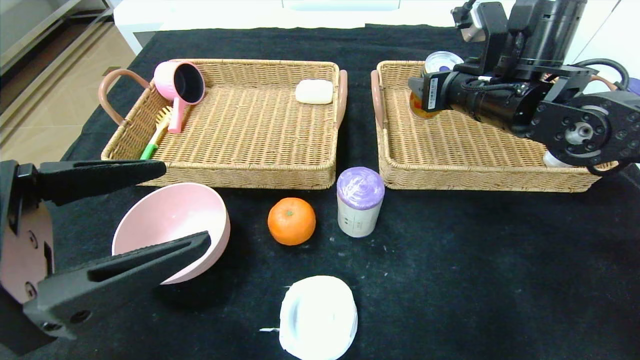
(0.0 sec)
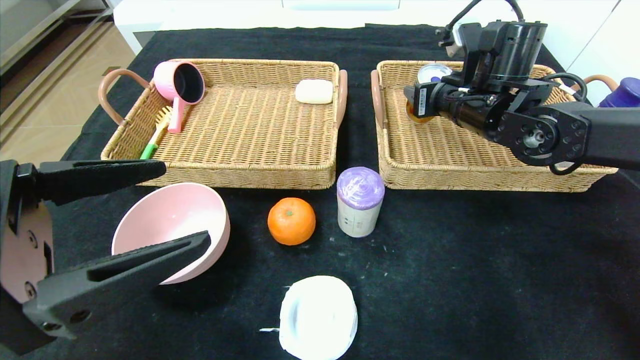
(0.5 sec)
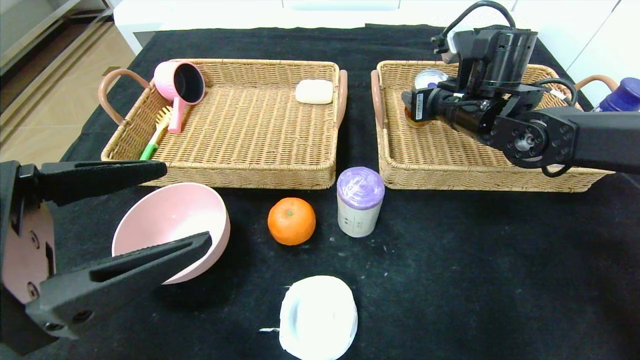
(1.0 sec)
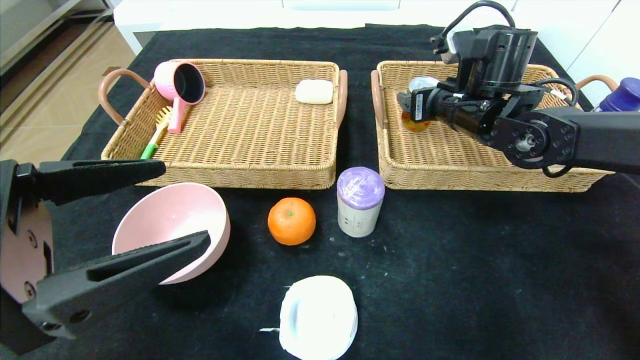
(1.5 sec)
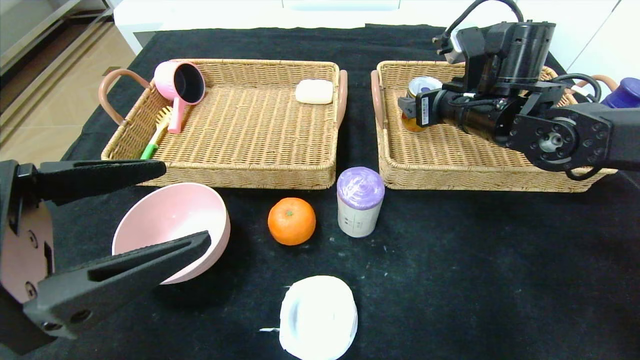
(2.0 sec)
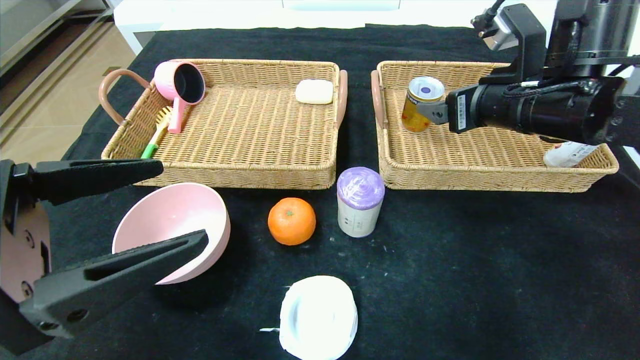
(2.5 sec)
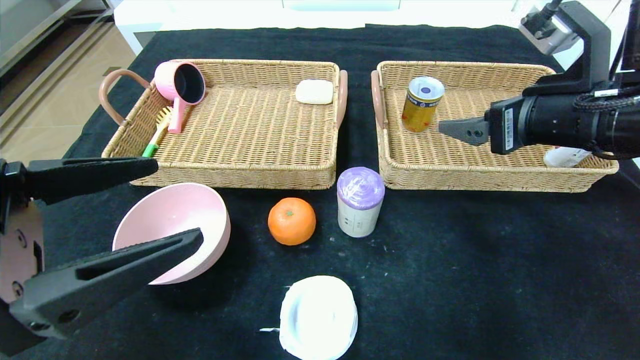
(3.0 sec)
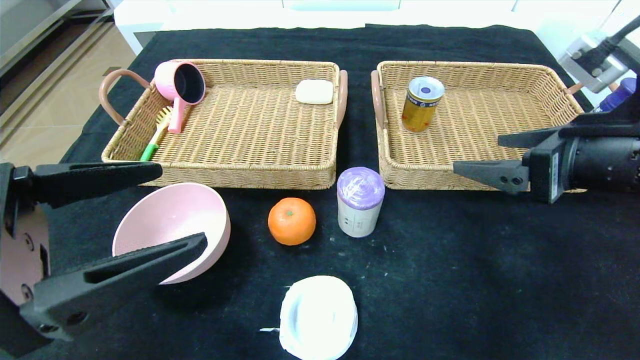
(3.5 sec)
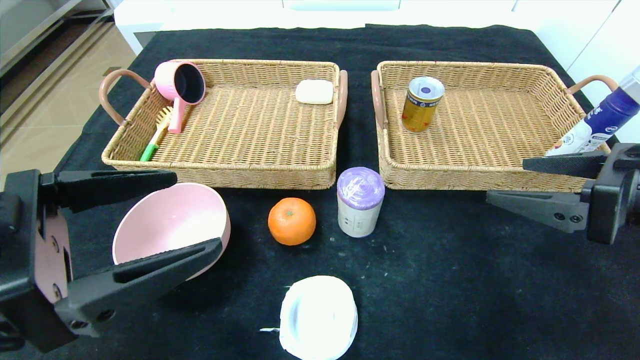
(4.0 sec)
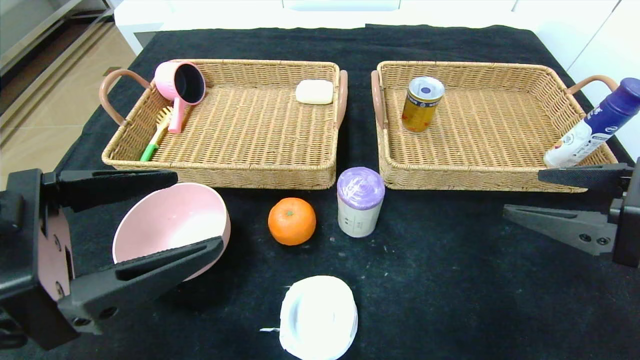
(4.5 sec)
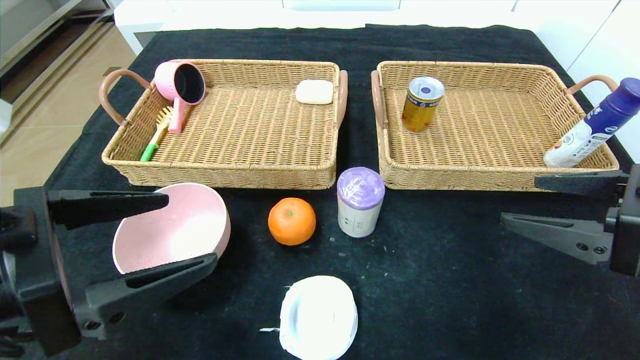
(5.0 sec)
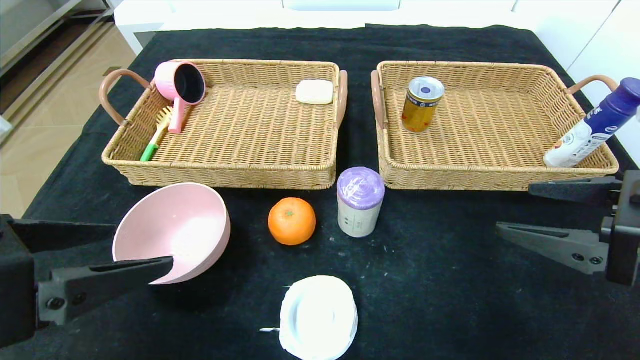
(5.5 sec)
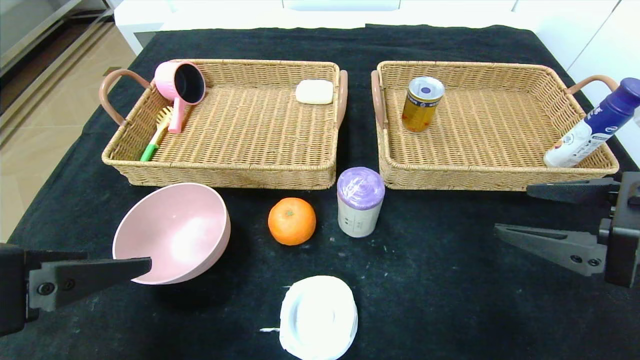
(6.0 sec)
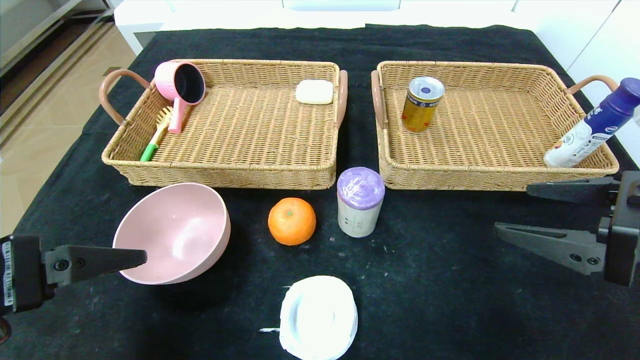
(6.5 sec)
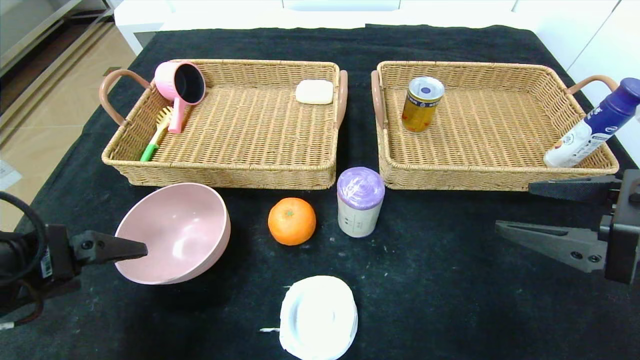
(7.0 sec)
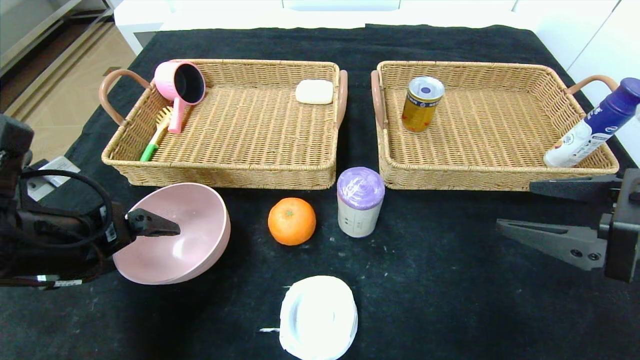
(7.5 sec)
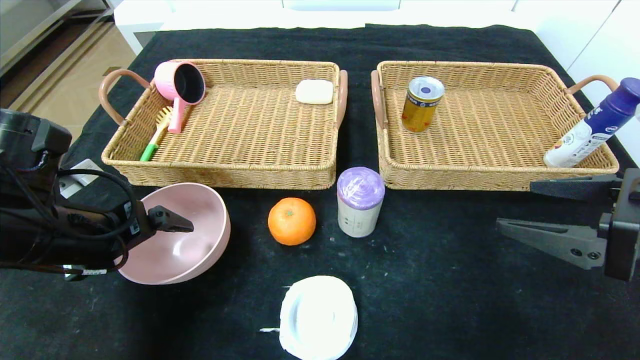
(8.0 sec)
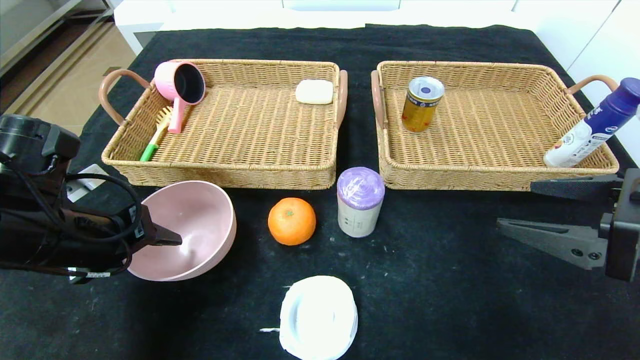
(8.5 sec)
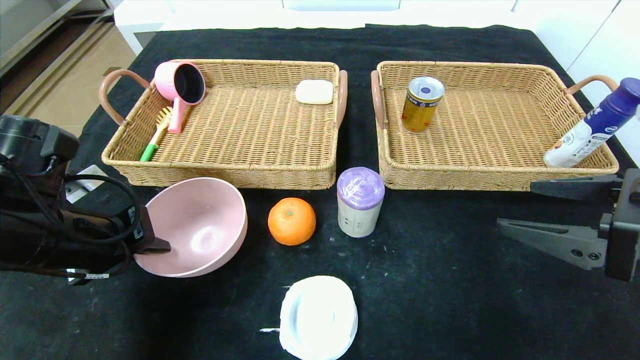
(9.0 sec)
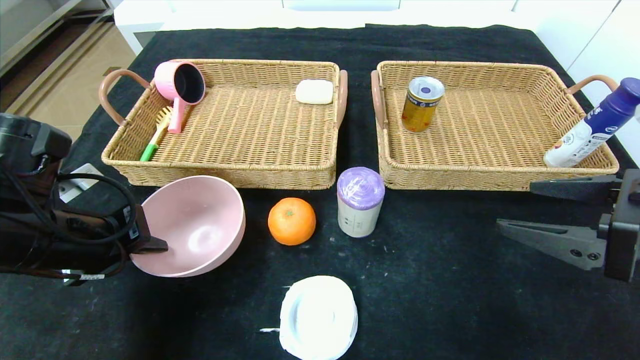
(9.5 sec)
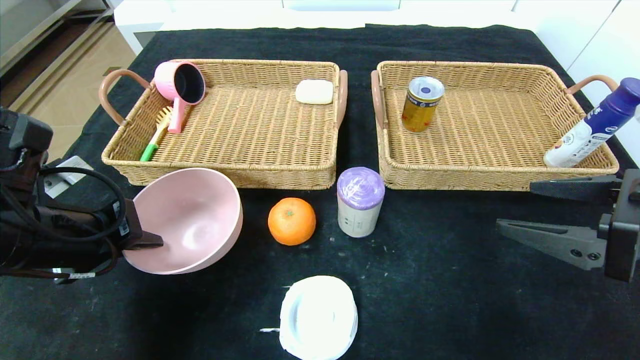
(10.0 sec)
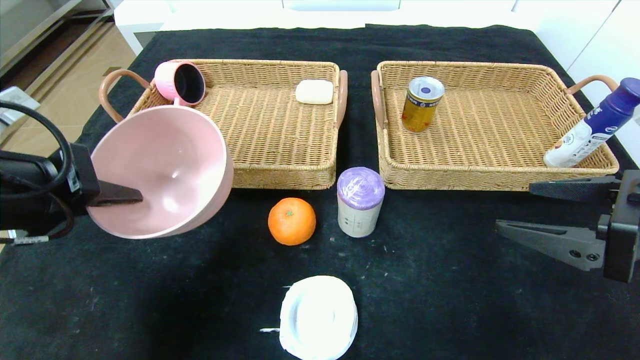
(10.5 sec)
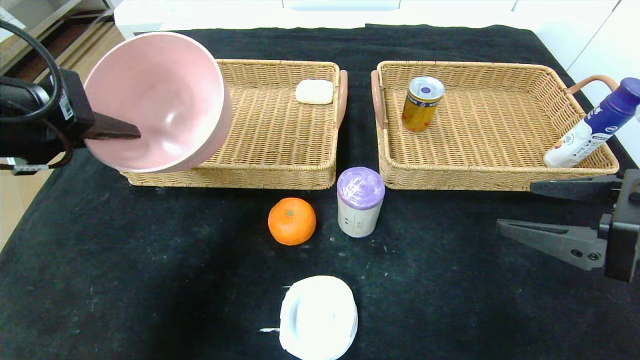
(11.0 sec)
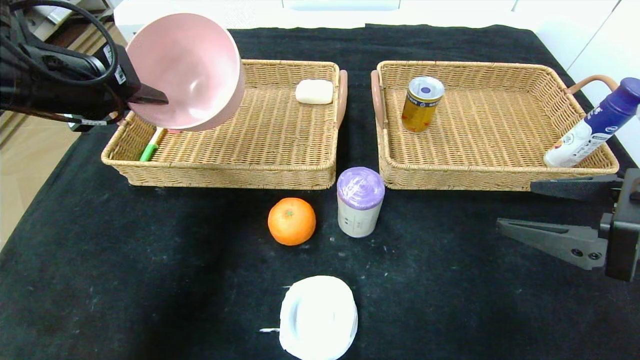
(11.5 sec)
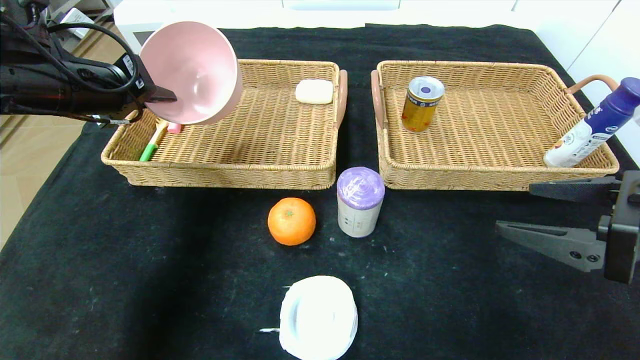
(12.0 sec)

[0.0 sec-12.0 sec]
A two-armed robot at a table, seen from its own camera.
Step, 0.0 sec to 2.0 sec: Grasp the Red Bull and put it in the right basket.
0.0 sec to 2.0 sec: The right gripper opens its fingers.
2.0 sec to 4.0 sec: The right gripper heads backward and to the right, covering approximately 20 cm.
6.0 sec to 8.0 sec: The left gripper heads forward and downward, covering some 15 cm.
8.0 sec to 10.0 sec: The left gripper closes up.
10.0 sec to 12.0 sec: The left gripper shifts some 15 cm forward and upward.

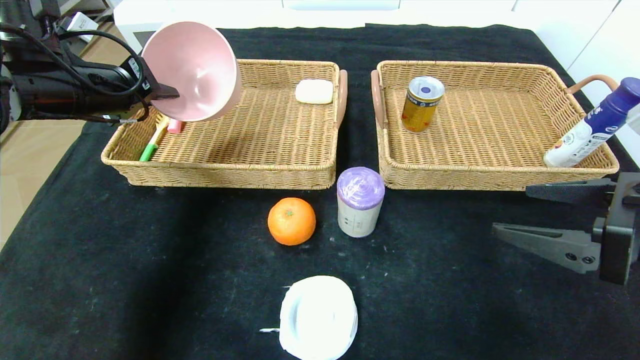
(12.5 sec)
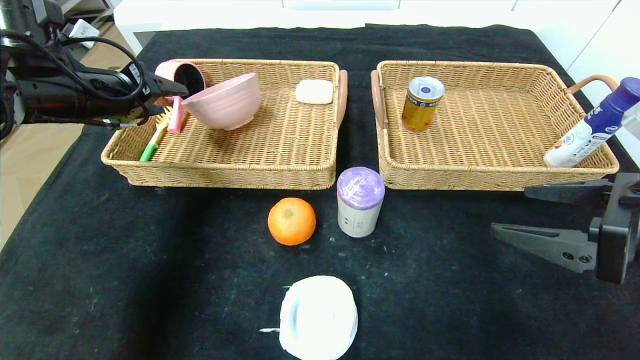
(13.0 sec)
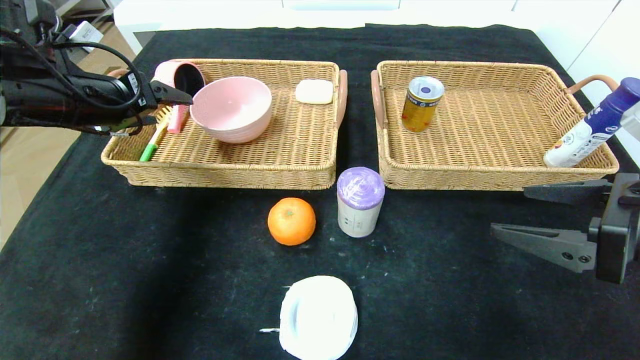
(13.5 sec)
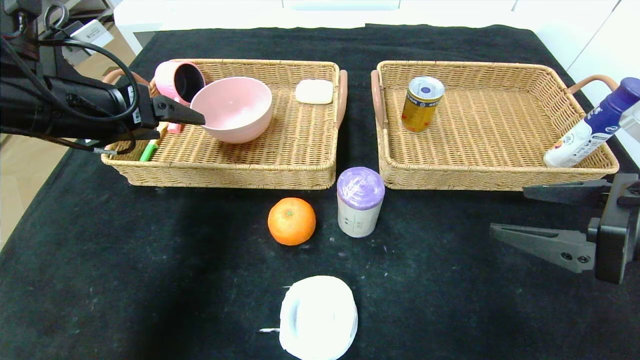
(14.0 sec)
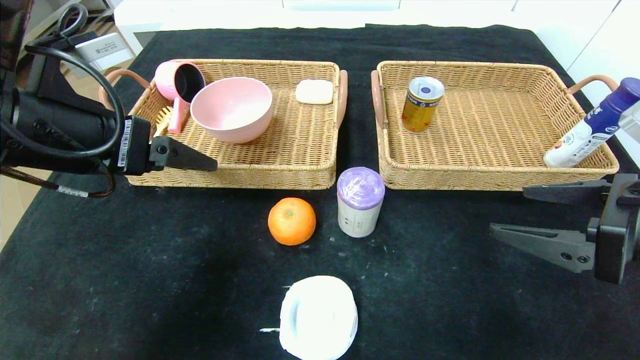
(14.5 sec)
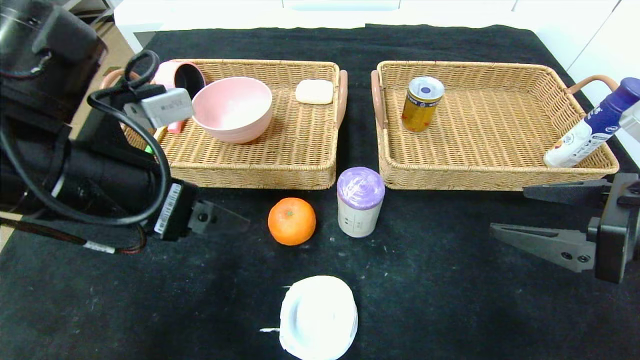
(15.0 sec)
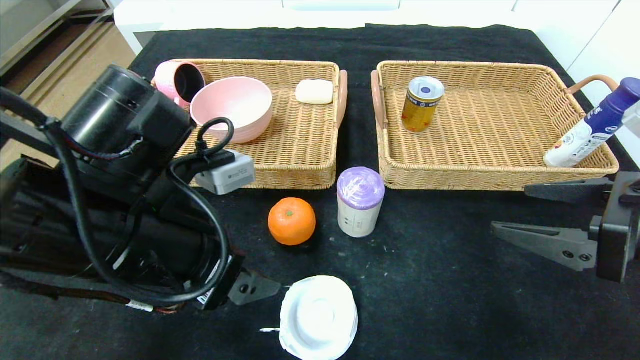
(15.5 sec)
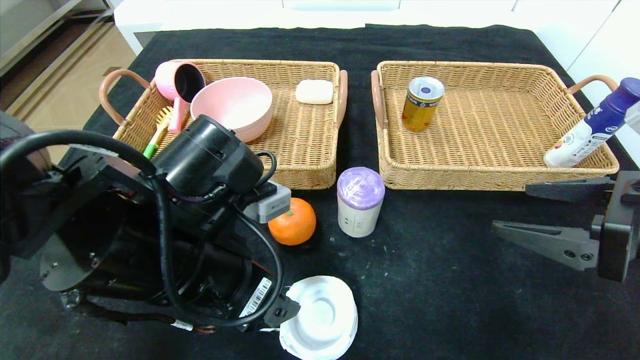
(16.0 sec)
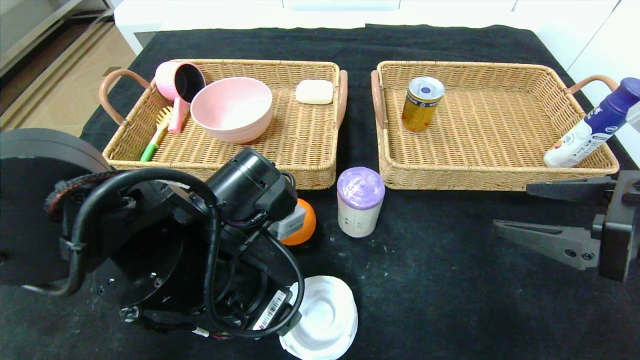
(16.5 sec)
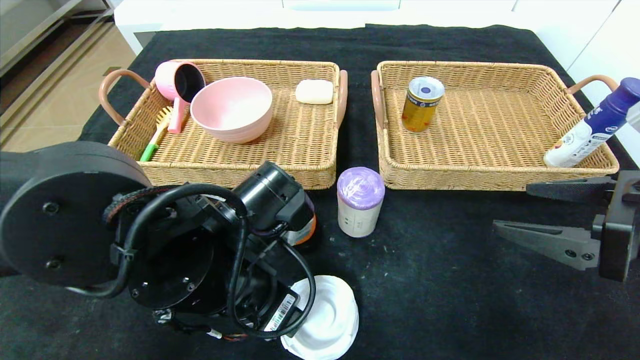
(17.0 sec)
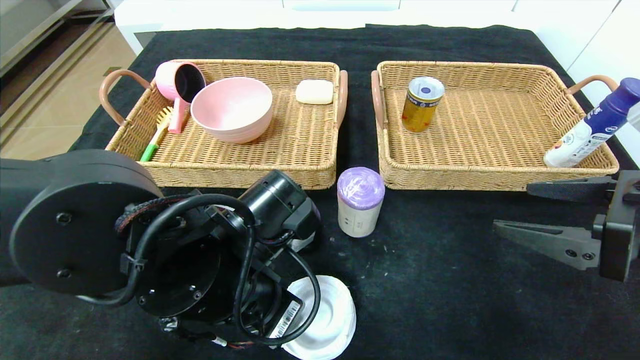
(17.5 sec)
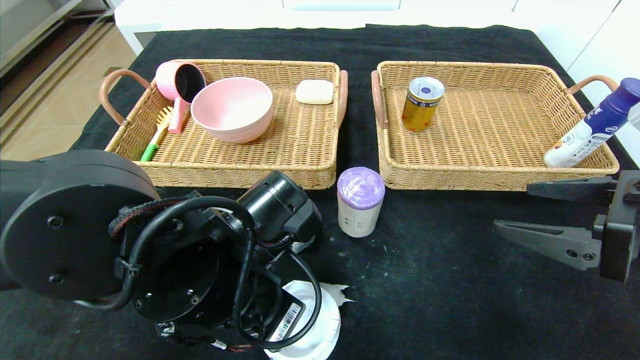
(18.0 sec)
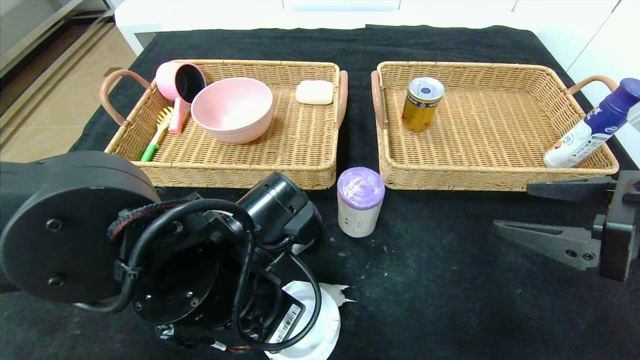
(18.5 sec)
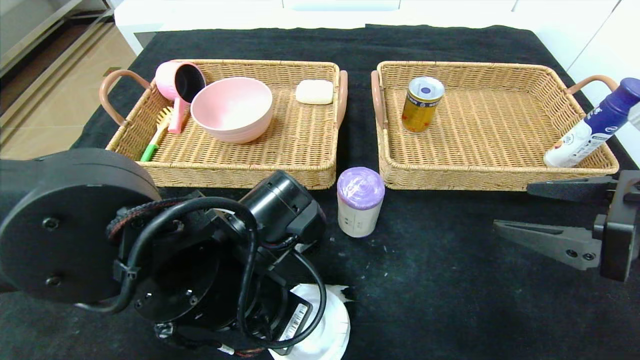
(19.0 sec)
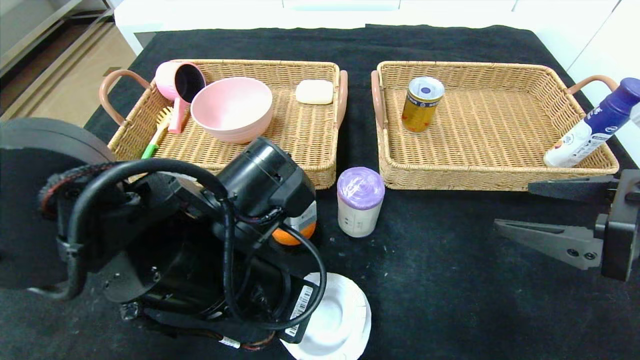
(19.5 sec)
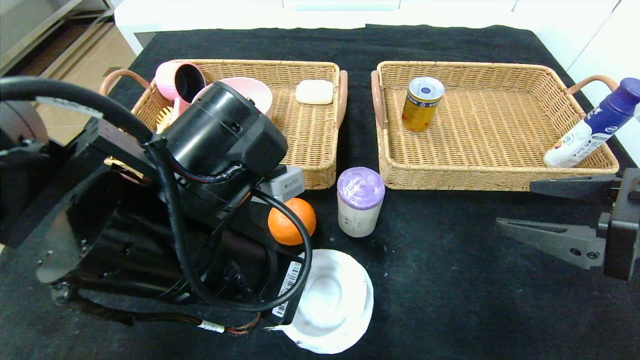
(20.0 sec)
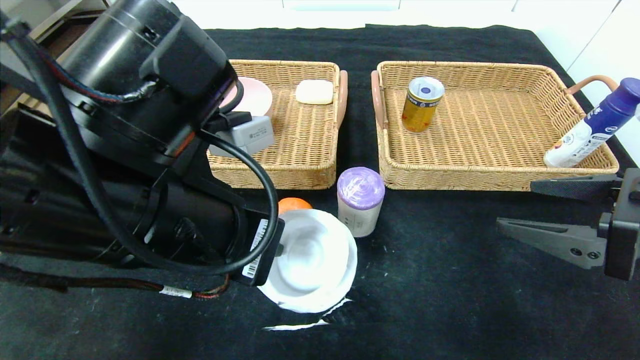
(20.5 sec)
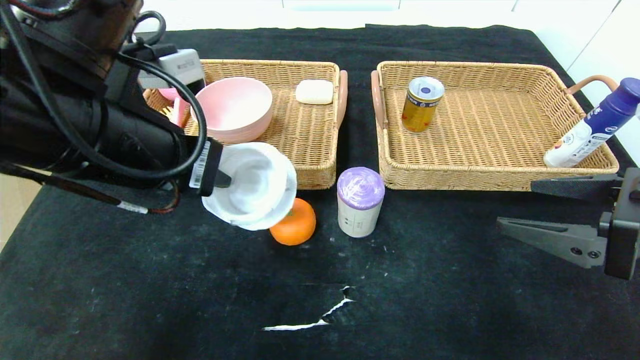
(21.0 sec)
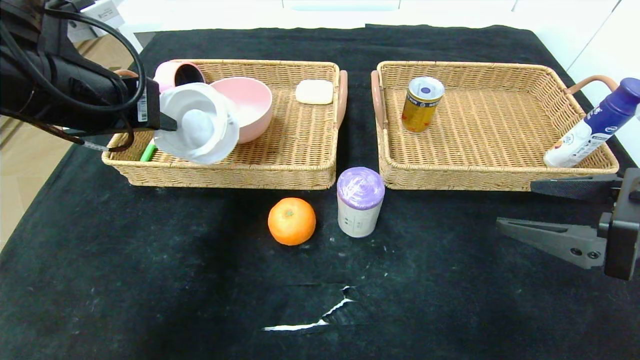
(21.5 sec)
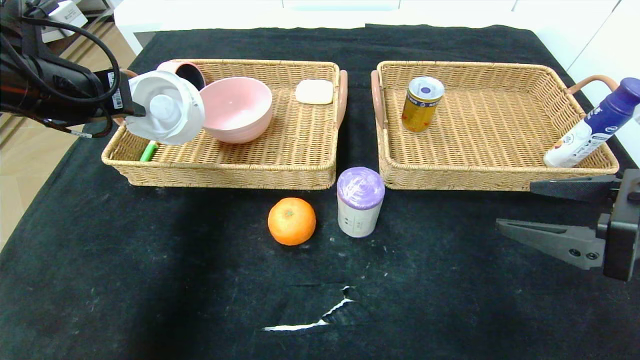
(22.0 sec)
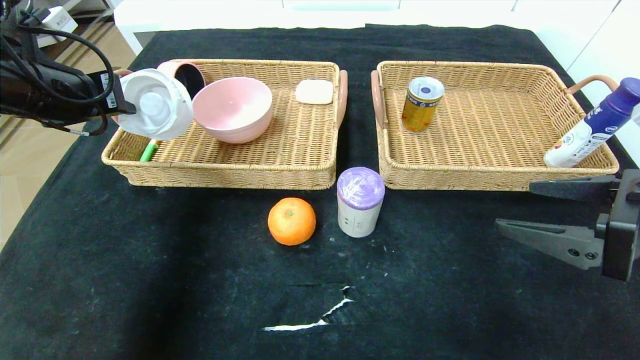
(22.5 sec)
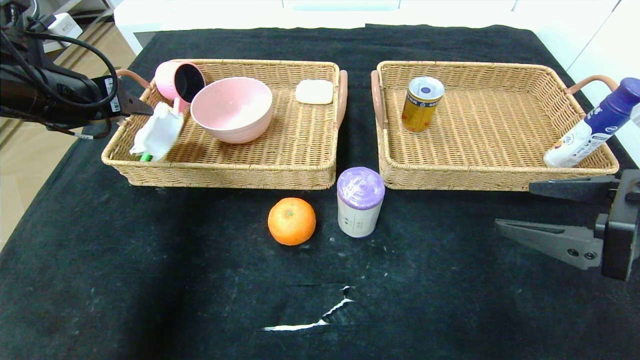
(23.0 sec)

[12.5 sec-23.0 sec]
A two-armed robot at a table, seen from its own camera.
Step, 13.5 sec to 23.0 sec: Grasp the tape and put it in the left basket.
12.5 sec to 14.5 sec: The left gripper goes roughly 15 cm backward and to the right, and opens.
14.5 sec to 16.5 sec: The left gripper goes roughly 20 cm to the right and downward.
16.5 sec to 19.0 sec: The left gripper closes up.
19.0 sec to 21.0 sec: The left gripper is displaced upward and to the left by roughly 15 cm.
21.0 sec to 23.0 sec: The left gripper travels to the left and forward by roughly 20 cm, and opens.
